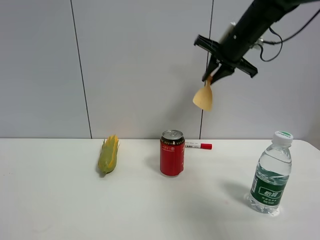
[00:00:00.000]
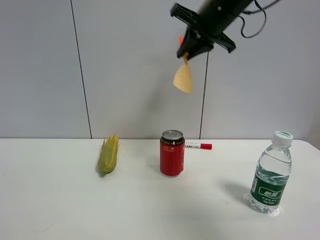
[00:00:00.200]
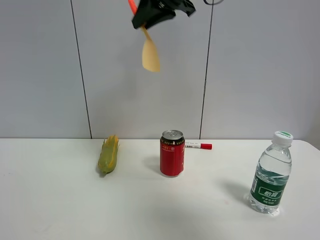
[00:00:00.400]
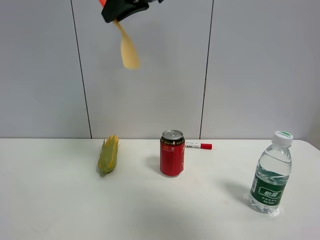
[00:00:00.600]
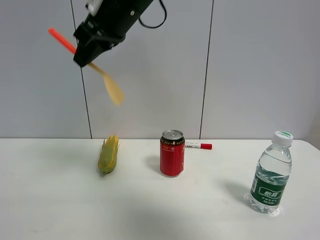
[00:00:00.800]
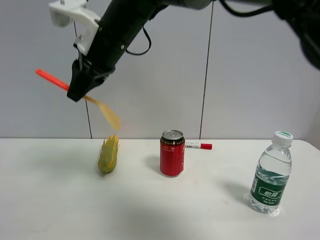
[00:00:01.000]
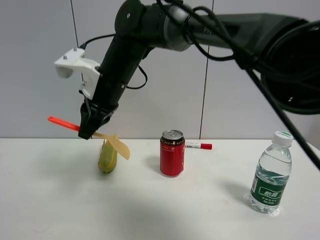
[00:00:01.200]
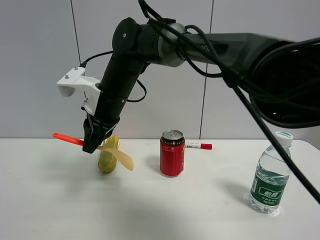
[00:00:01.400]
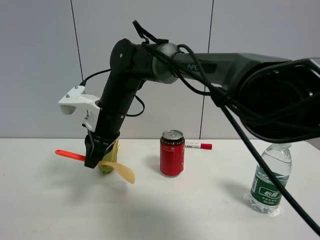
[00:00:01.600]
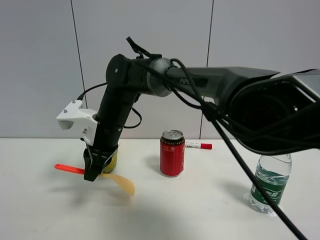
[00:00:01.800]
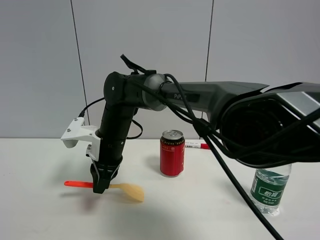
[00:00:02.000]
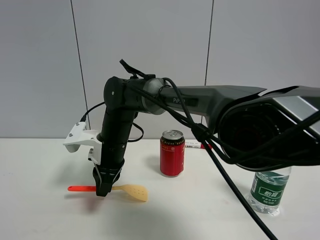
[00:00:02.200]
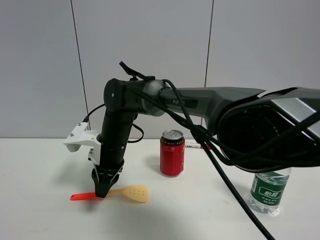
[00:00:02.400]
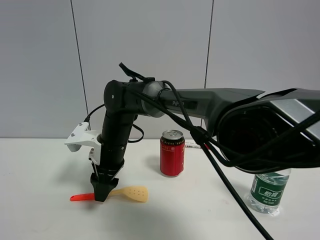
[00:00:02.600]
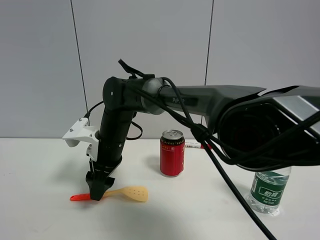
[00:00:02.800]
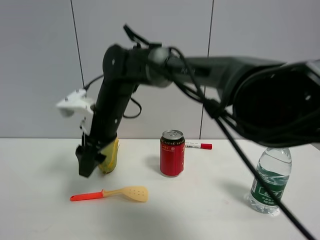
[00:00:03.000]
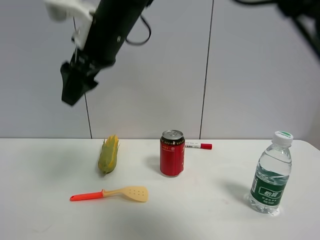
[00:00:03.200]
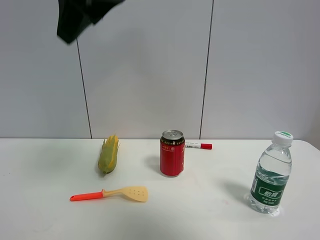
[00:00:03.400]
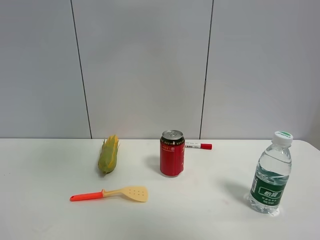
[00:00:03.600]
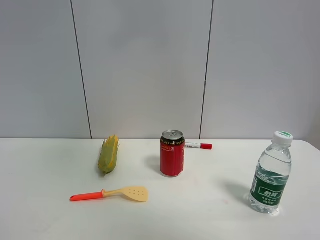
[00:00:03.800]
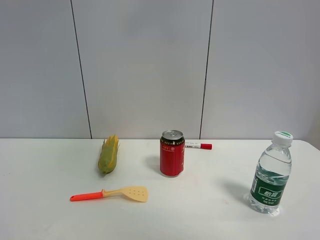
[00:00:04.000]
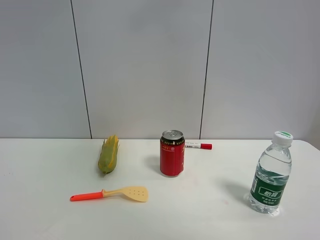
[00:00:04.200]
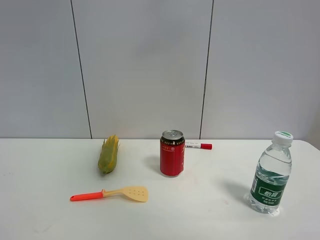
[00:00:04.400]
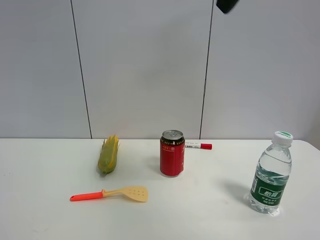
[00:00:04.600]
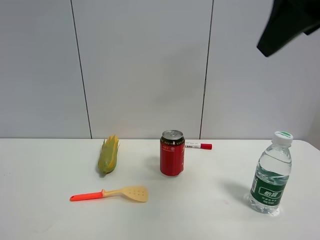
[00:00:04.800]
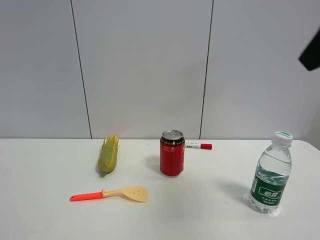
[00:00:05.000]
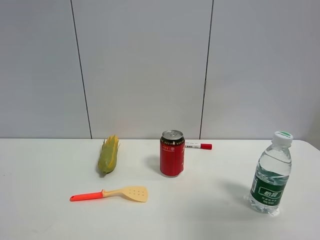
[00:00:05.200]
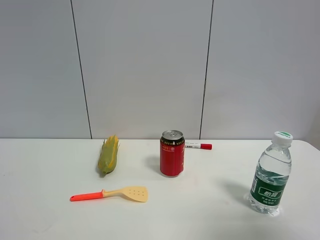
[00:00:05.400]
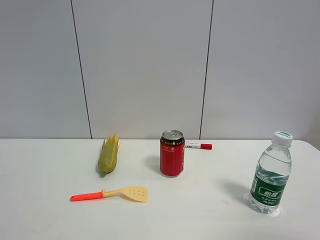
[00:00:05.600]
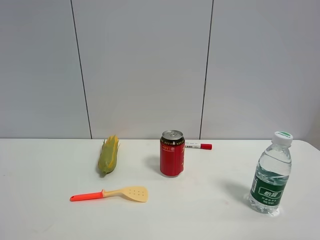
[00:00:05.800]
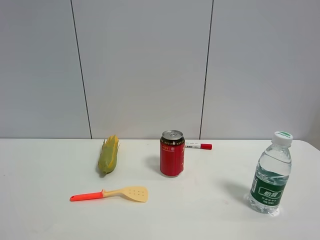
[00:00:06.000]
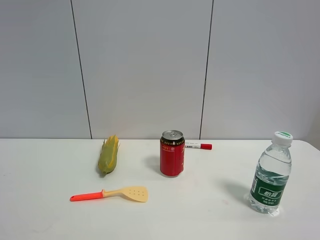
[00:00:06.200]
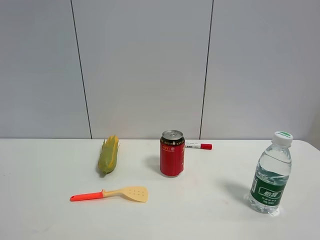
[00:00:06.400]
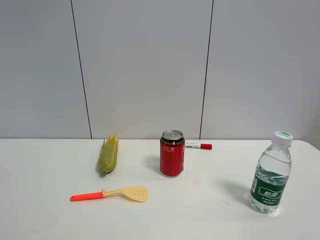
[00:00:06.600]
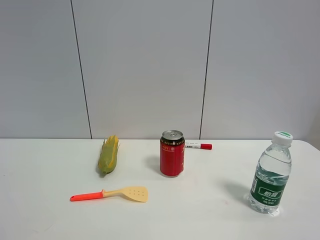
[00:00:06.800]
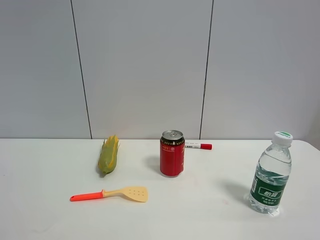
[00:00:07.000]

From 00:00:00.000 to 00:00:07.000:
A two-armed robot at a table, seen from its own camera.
Task of the whole recording: the gripper move the object.
Step, from 00:00:00.000 to 00:00:02.800: Place the cooking shovel on the table with the right gripper.
From 00:00:00.000 to 00:00:01.400: The right gripper goes approximately 30 cm to the left and downward.
From 00:00:01.400 to 00:00:02.800: The right gripper moves downward, about 10 cm, and opens its fingers.
From 00:00:02.800 to 00:00:04.200: The right gripper is displaced upward and to the right by roughly 50 cm.
From 00:00:04.200 to 00:00:05.600: The right gripper shifts some 40 cm downward, backward and to the right.
